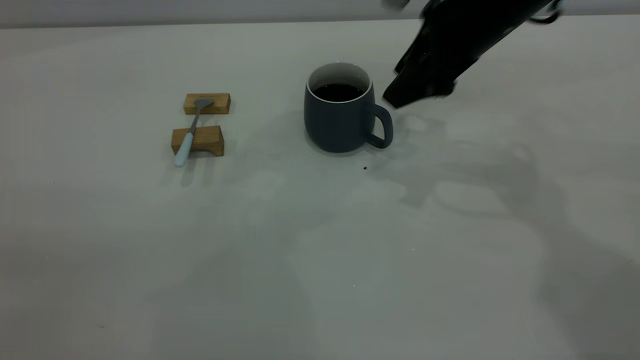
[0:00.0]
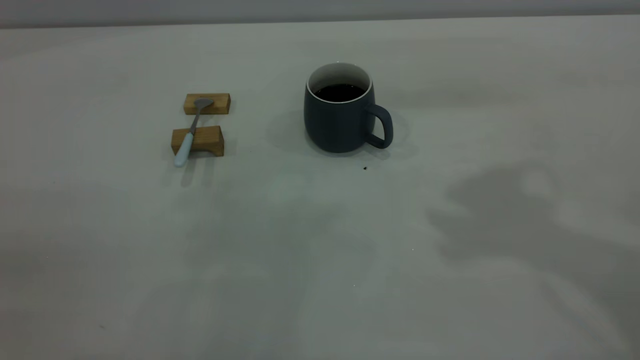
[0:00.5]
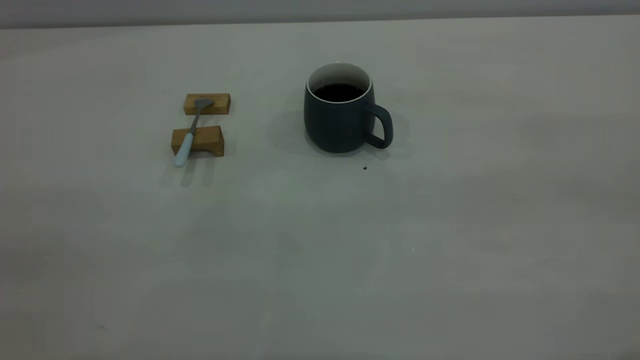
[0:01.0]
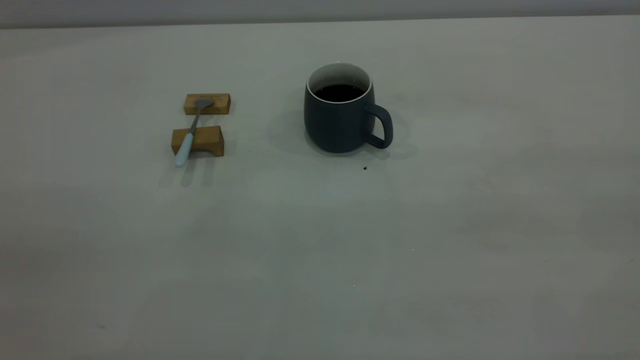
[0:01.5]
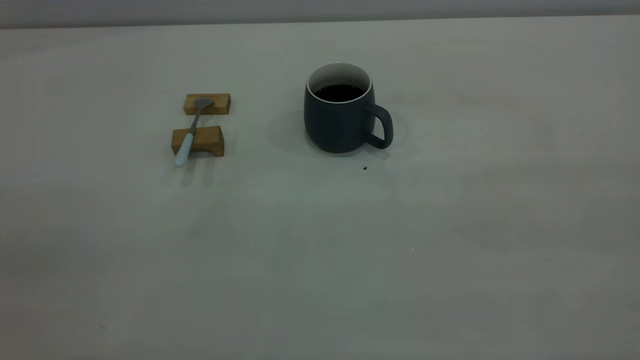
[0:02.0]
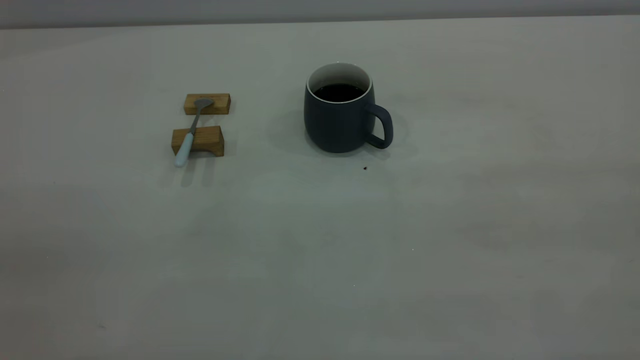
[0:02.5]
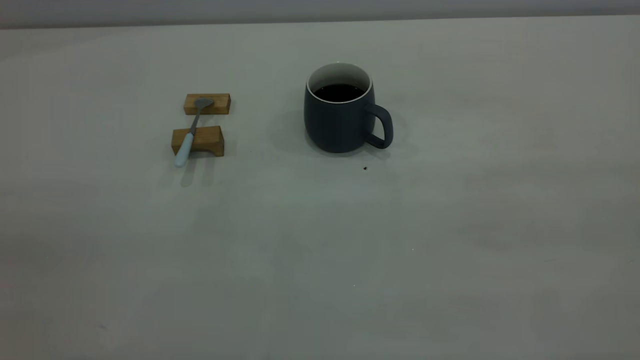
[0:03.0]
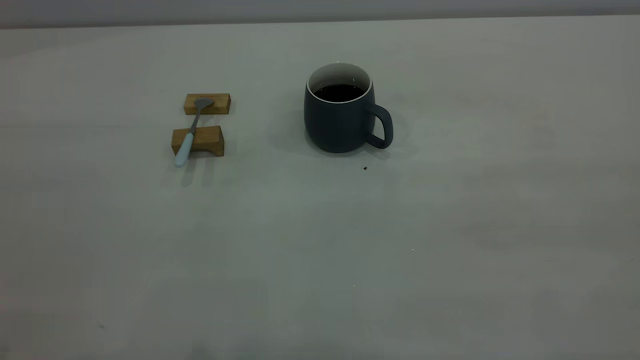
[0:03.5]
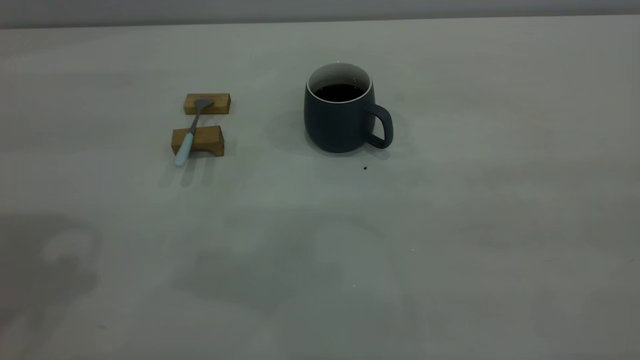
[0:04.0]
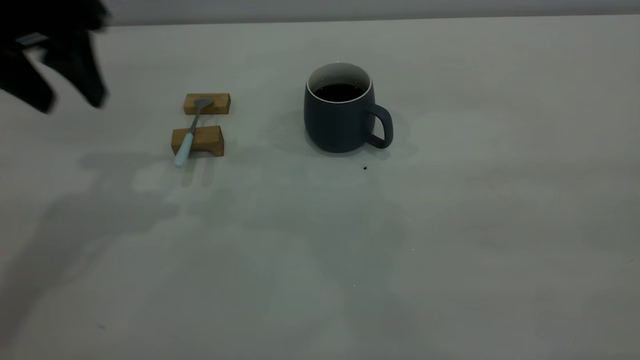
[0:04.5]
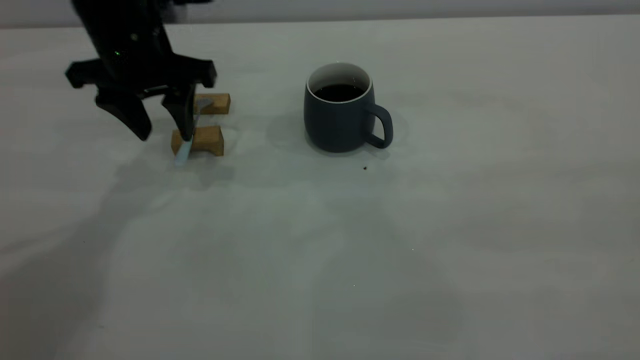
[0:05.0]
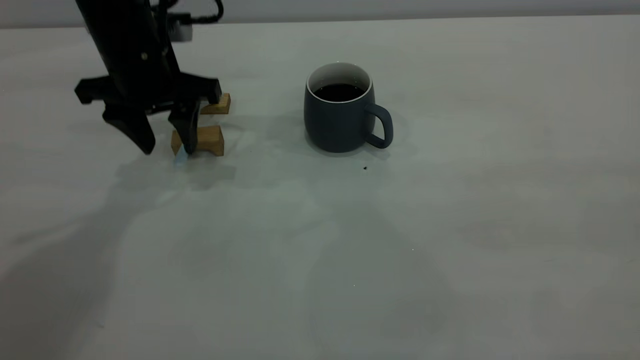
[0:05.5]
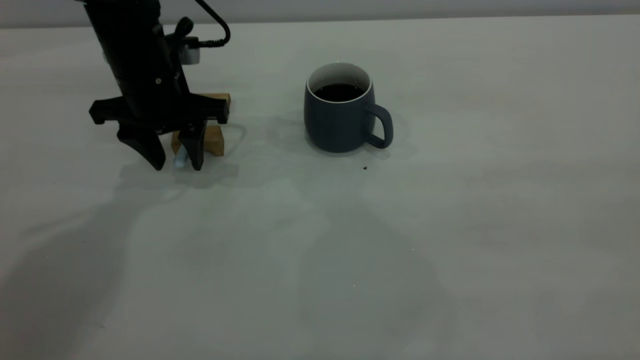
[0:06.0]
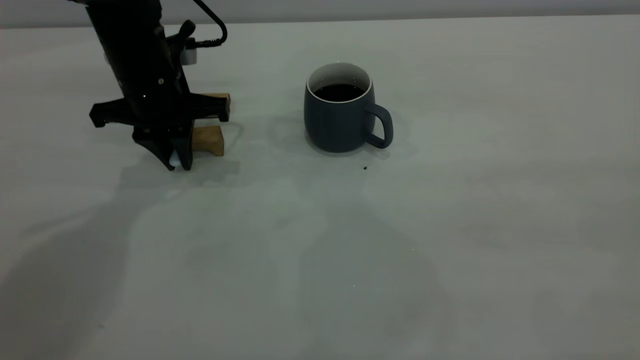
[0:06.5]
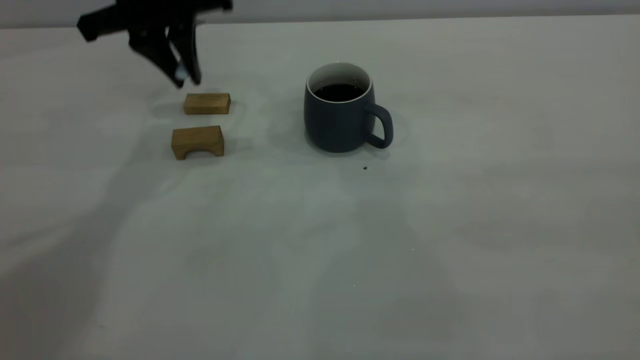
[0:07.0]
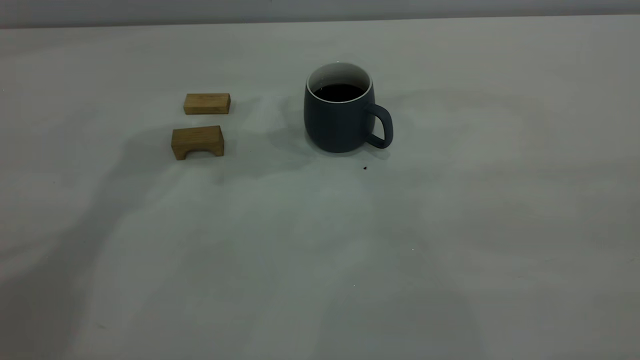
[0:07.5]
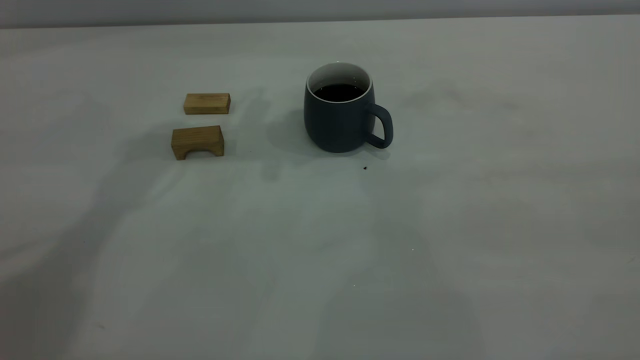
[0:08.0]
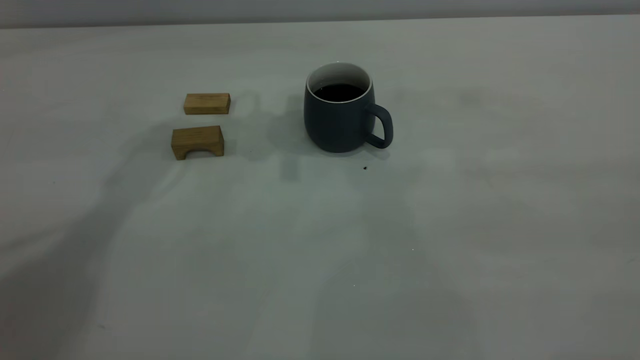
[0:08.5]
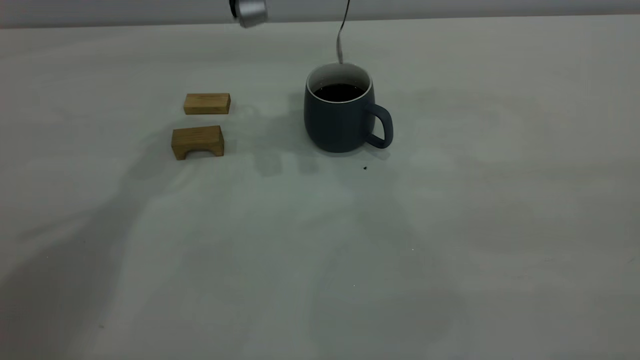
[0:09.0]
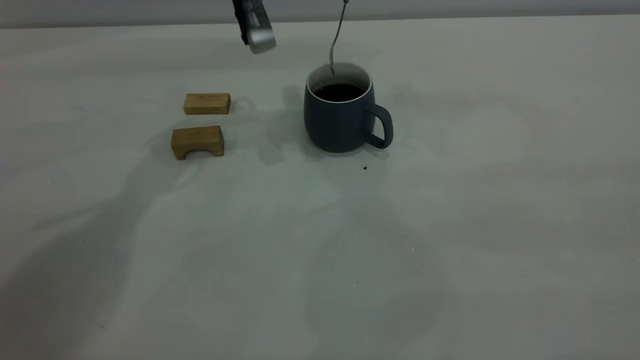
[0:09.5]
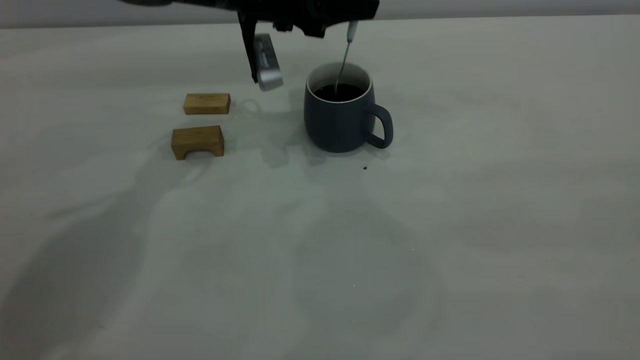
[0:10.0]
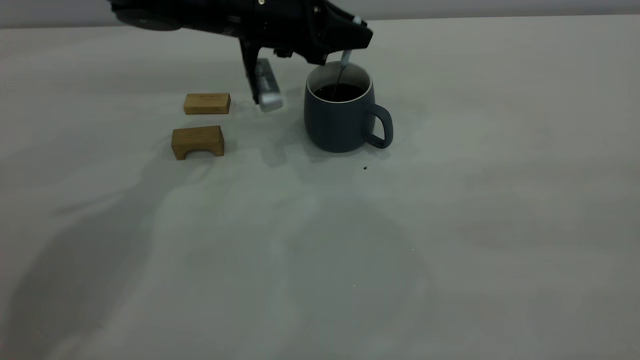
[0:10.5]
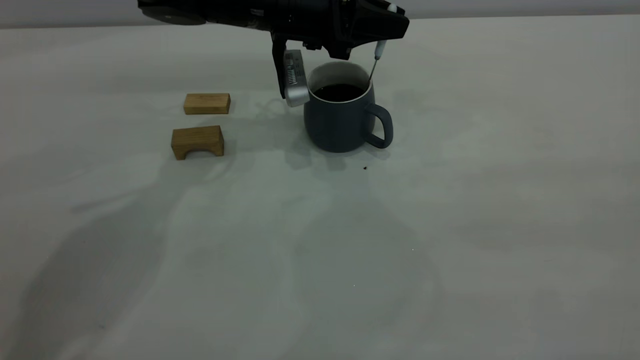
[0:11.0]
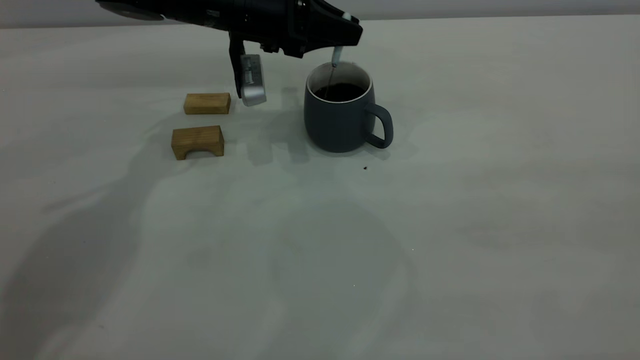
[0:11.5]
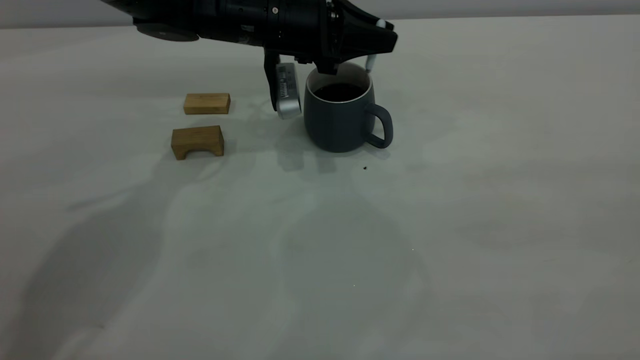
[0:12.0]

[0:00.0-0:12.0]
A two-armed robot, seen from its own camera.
Step, 0:00.5 to 0:06.5: Pick up the spoon.
0:00.0 to 0:02.0: The right gripper shifts approximately 40 cm backward and upward.
0:04.0 to 0:06.0: The left gripper is displaced downward, forward and to the right by approximately 30 cm.
0:06.0 to 0:08.0: The left gripper moves upward and to the right, roughly 20 cm, and closes its fingers.
0:08.0 to 0:10.0: The left gripper moves downward, about 15 cm.
0:10.0 to 0:12.0: The grippers move only a little.

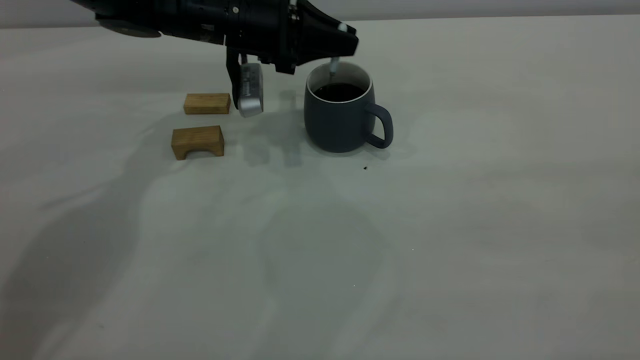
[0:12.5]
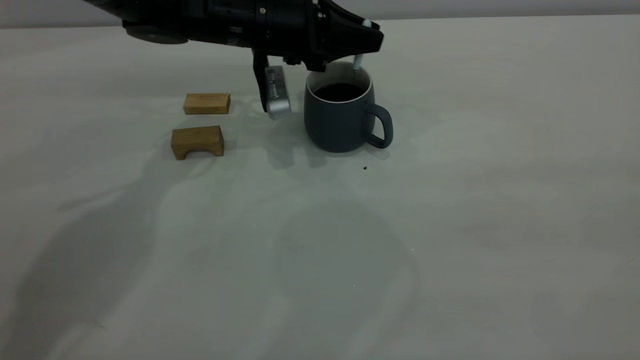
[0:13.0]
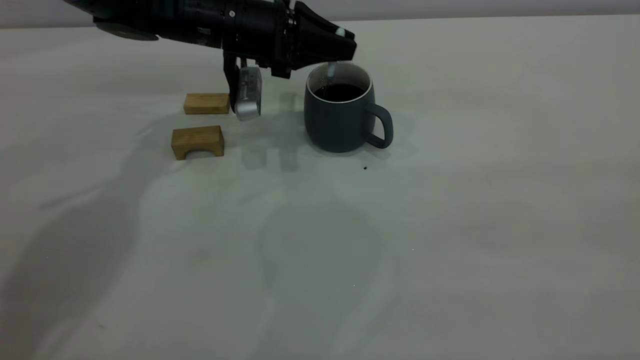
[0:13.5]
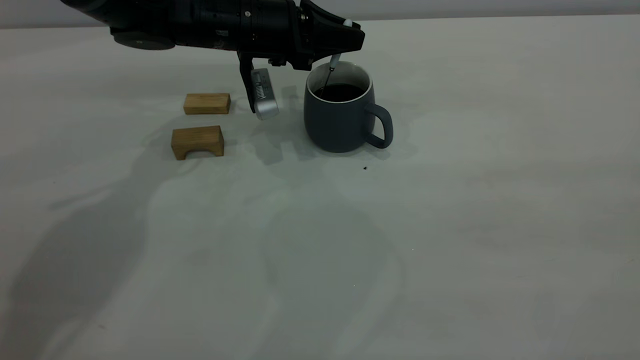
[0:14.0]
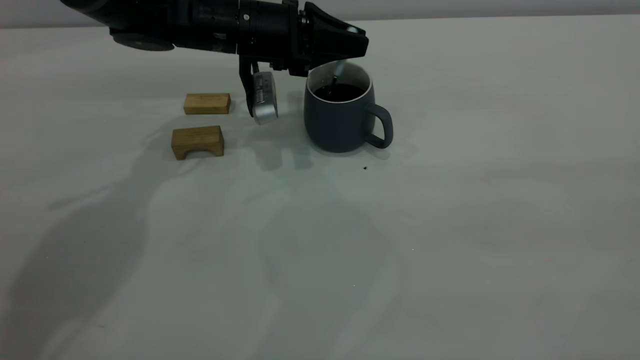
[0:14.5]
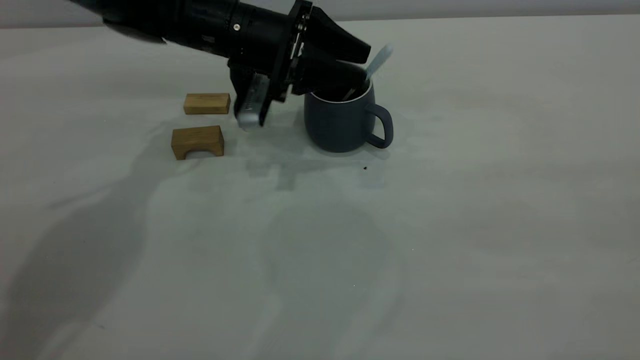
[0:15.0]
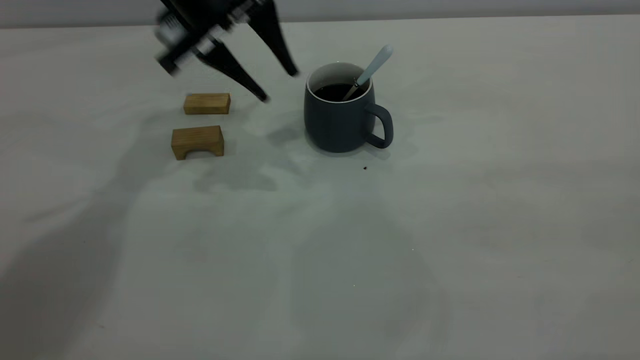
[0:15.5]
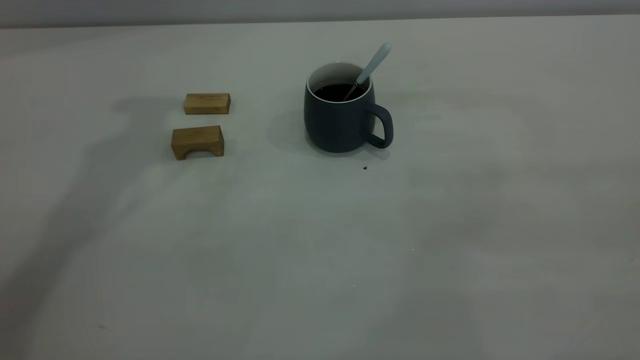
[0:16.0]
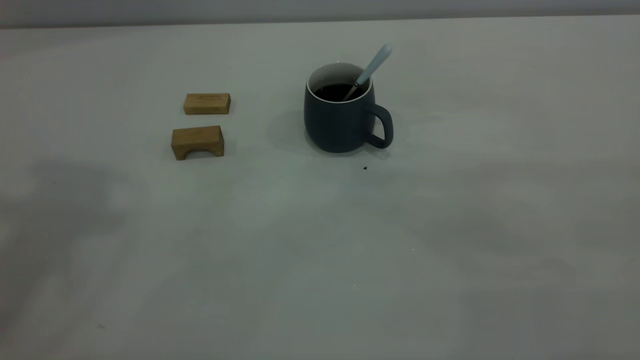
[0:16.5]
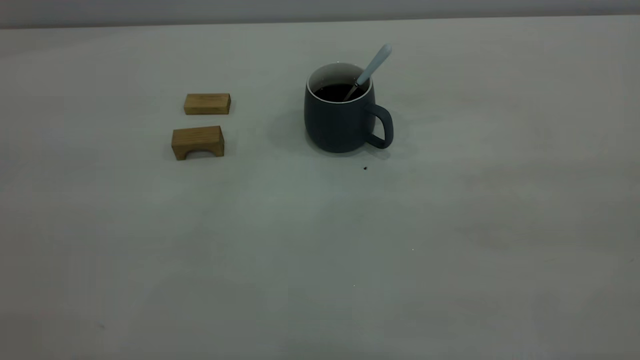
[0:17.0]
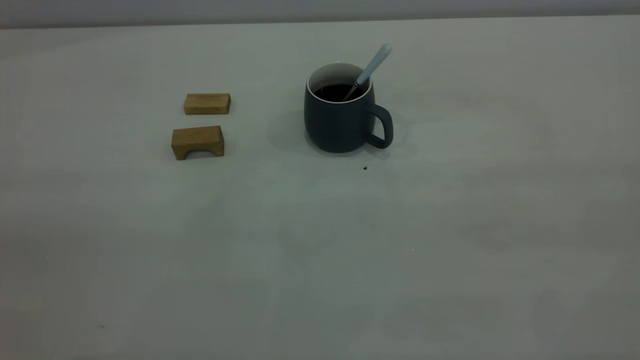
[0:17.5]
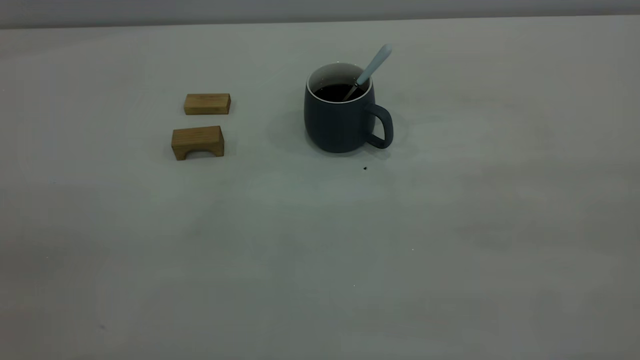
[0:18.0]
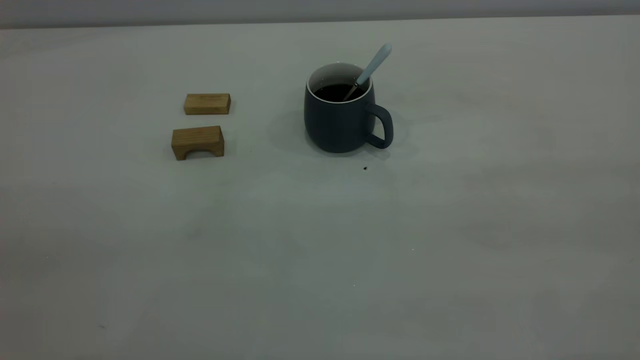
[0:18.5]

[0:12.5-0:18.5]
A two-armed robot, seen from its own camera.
Step, 0:12.5 to 0:15.0: Stir the coffee in the cup.
0:12.5 to 0:14.5: The grippers make only small movements.
0:14.5 to 0:16.5: The left gripper heads upward and backward, covering roughly 50 cm, and opens up.
